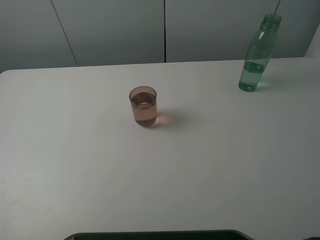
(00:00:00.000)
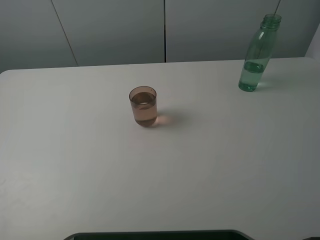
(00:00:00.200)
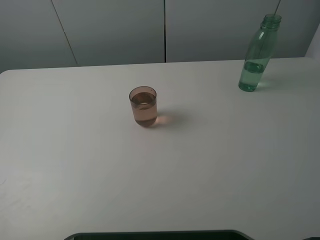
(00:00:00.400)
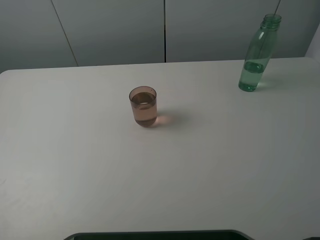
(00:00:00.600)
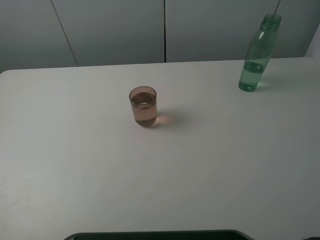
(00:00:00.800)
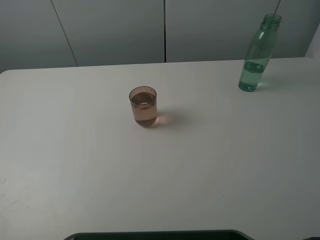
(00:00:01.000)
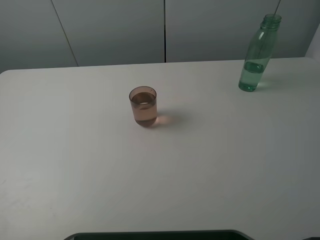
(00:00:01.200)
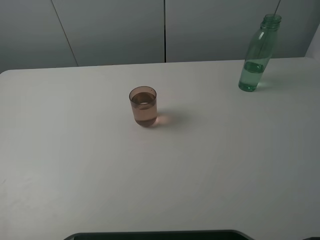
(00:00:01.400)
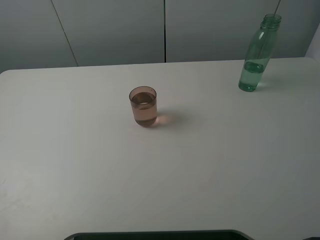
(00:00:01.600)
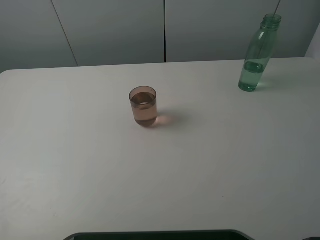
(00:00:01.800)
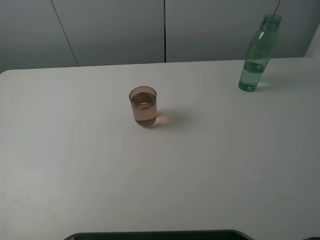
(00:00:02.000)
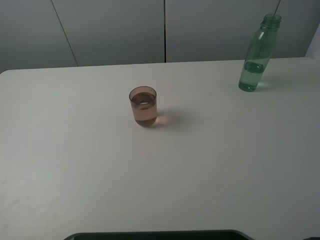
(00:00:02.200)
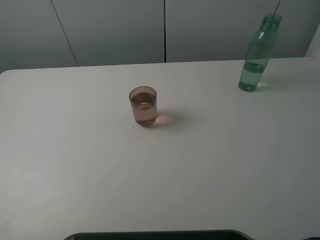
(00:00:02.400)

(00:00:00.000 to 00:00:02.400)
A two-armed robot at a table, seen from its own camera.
Task of the whole recording: pick up the bottle filled with water and pour it into the pink cup.
00:00:01.200 - 00:00:02.400: The two grippers keep their place.
